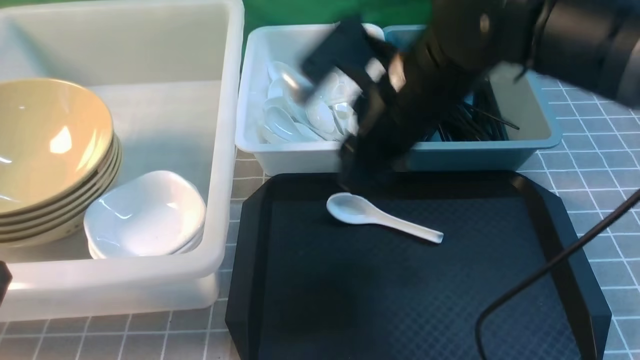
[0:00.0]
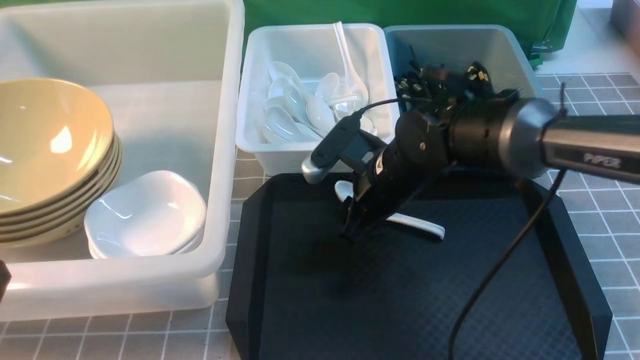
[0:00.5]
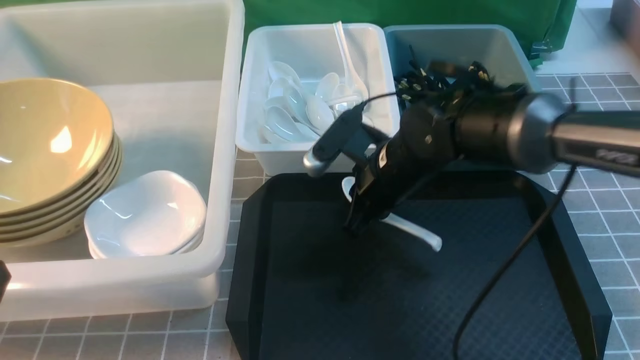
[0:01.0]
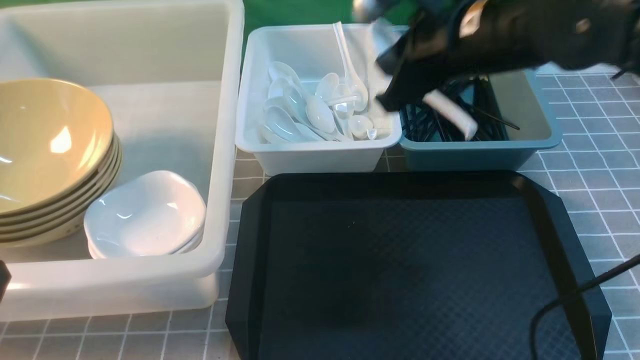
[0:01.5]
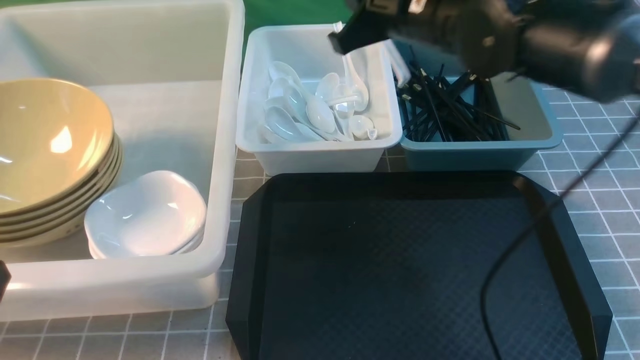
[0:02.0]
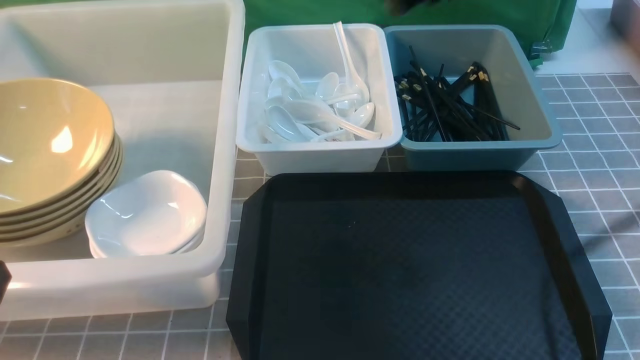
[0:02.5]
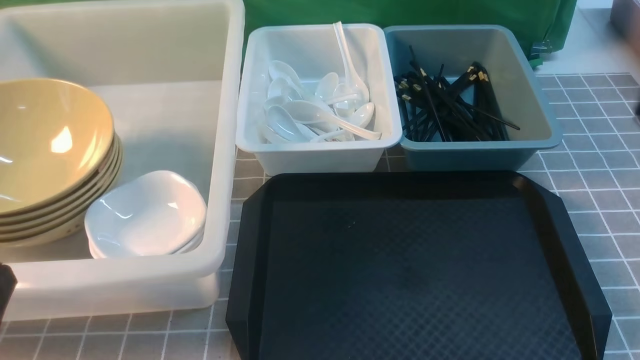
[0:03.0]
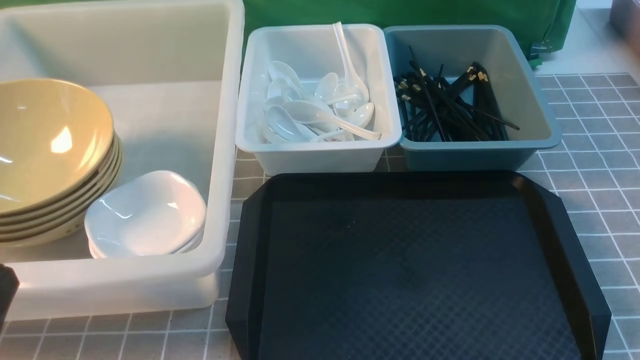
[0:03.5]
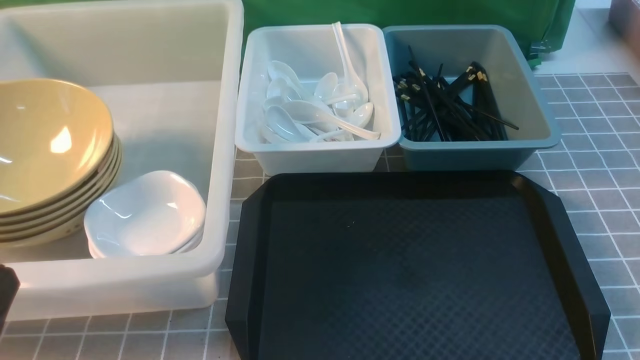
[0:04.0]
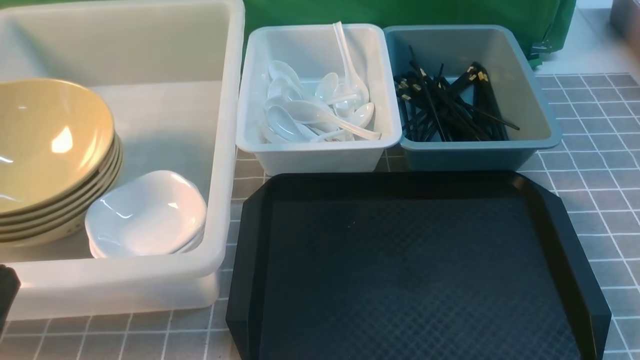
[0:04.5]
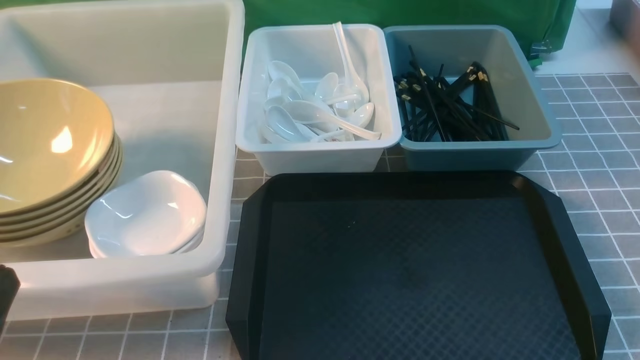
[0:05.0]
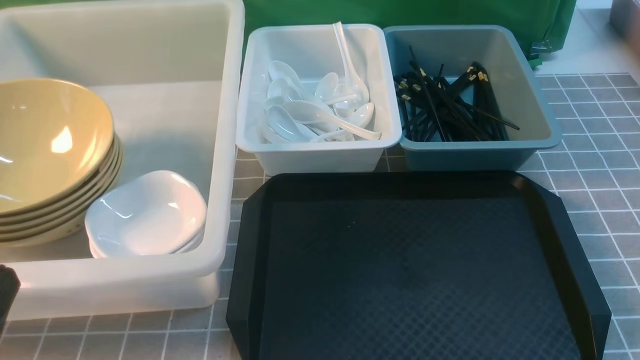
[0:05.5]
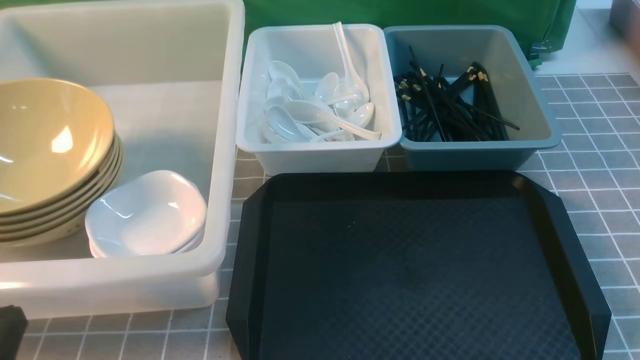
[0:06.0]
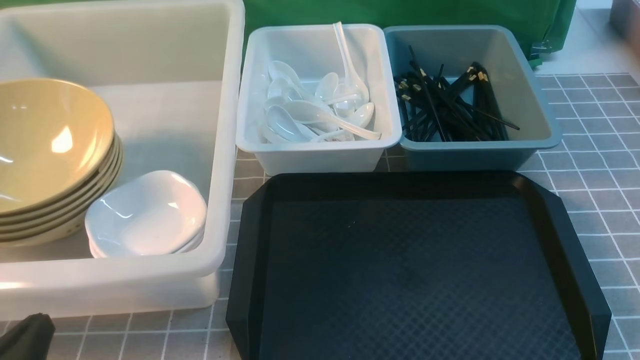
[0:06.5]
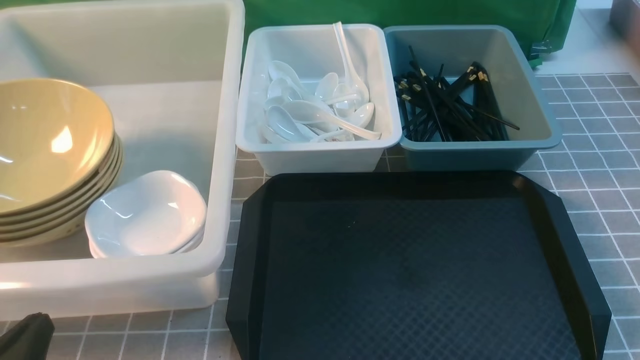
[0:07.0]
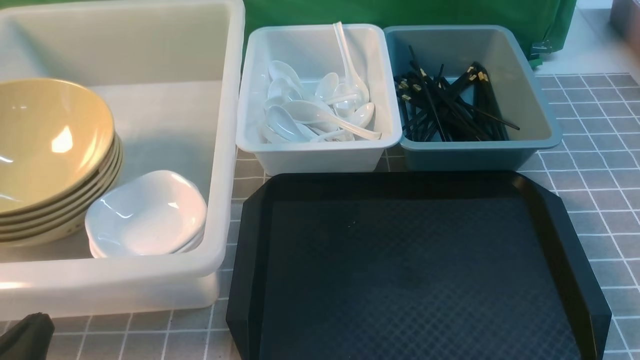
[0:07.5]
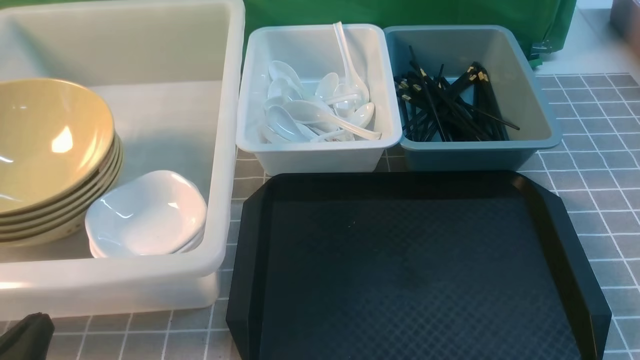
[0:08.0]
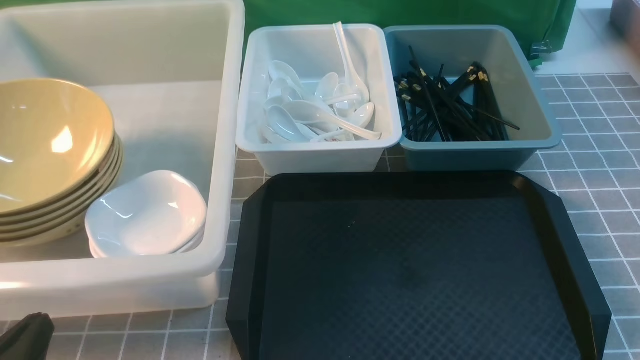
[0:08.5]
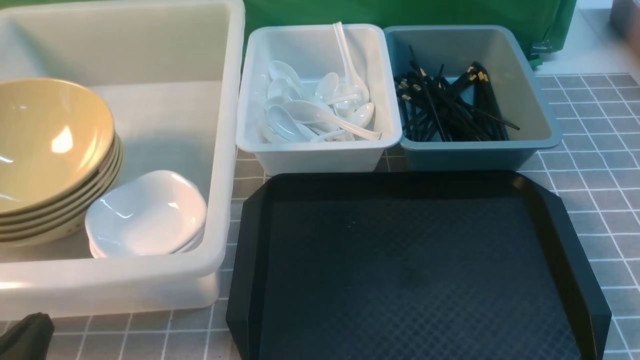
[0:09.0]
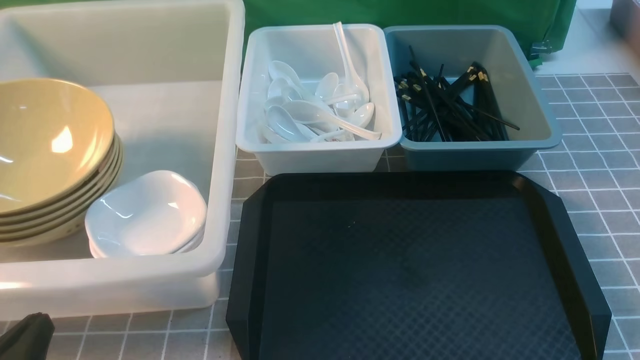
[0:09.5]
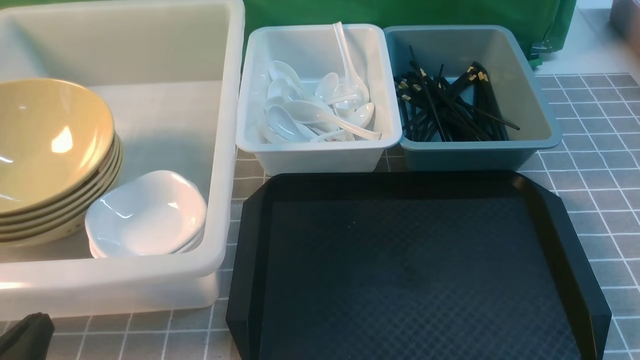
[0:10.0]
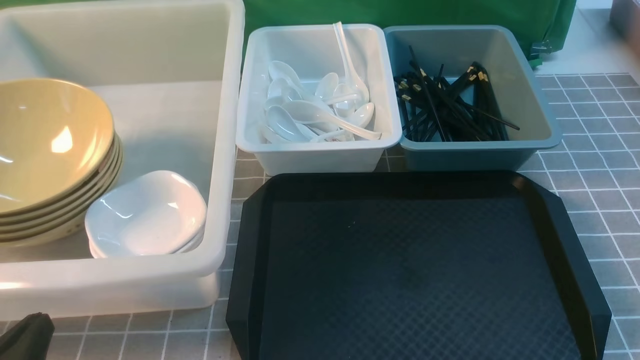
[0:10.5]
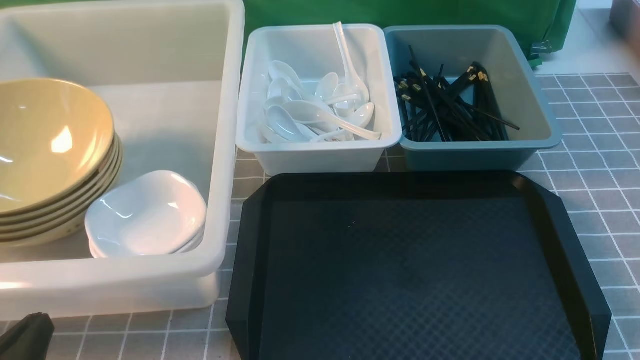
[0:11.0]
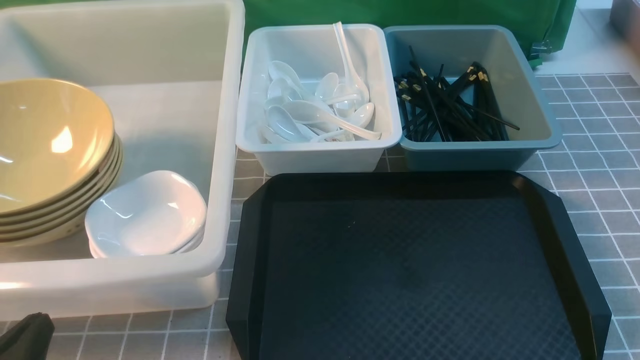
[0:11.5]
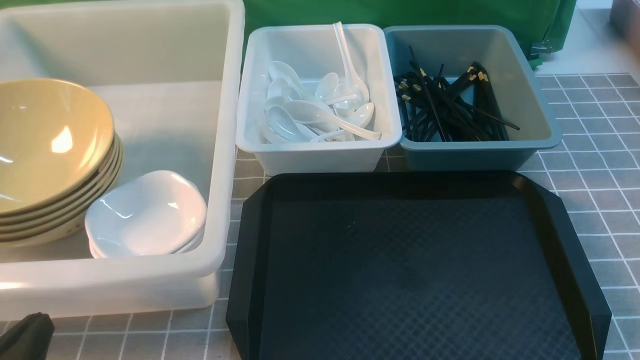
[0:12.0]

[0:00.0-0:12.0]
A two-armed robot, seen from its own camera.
Task of the whole recording: on grey table put chopsticks spoon bowls plates into blue grey white boxes.
Step, 0:00.0 to 0:00.5: use the right arm to grab the soup spoon in the middle.
Step, 0:01.5 to 0:02.0: use the right arm to put the soup spoon into the small storage box in the middle.
0:00.0 to 0:02.0: The right gripper heads forward, covering about 10 cm, moves some 10 cm downward and comes back, and closes.
0:02.0 to 0:04.0: The right gripper moves backward and to the right, some 40 cm.
0:04.0 to 0:06.0: The left gripper moves about 5 cm.
0:08.0 to 0:12.0: Neither gripper changes place.

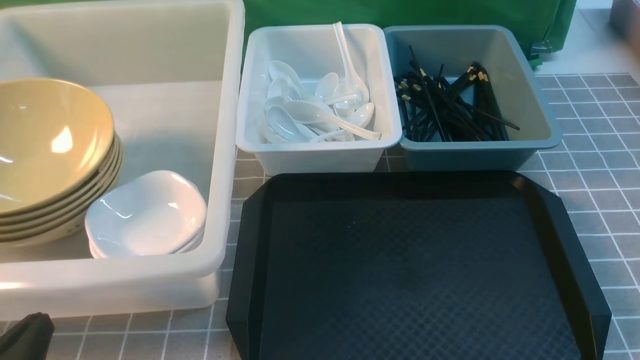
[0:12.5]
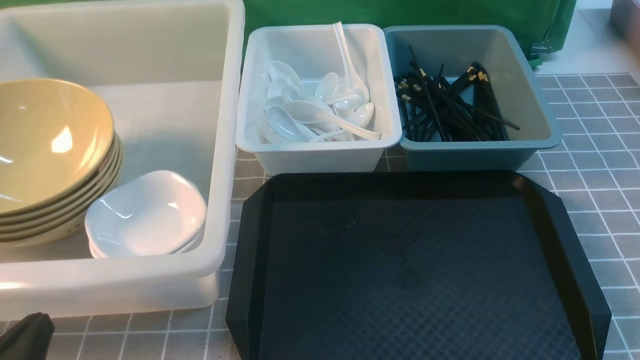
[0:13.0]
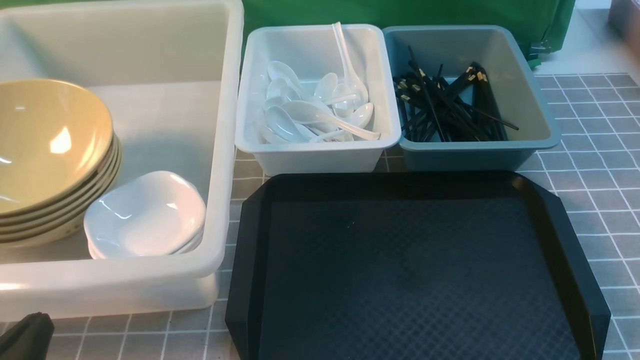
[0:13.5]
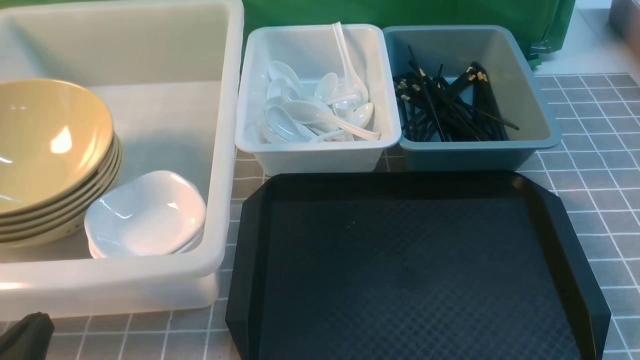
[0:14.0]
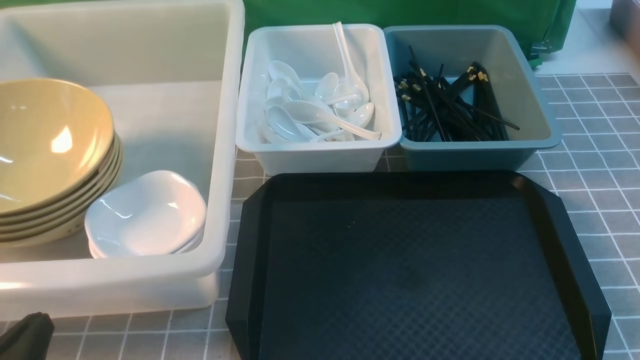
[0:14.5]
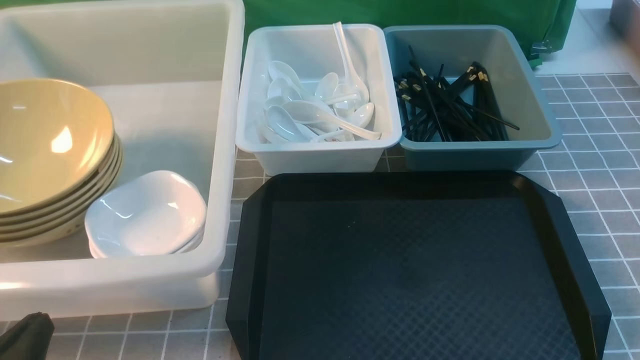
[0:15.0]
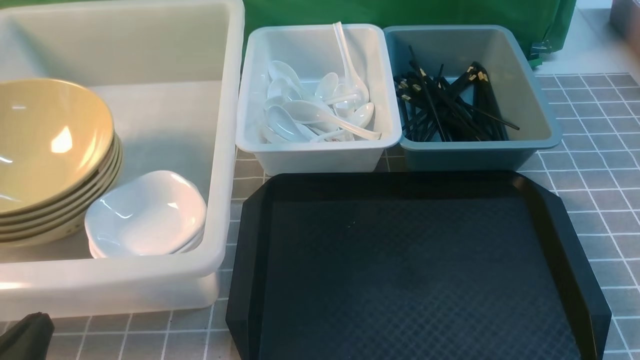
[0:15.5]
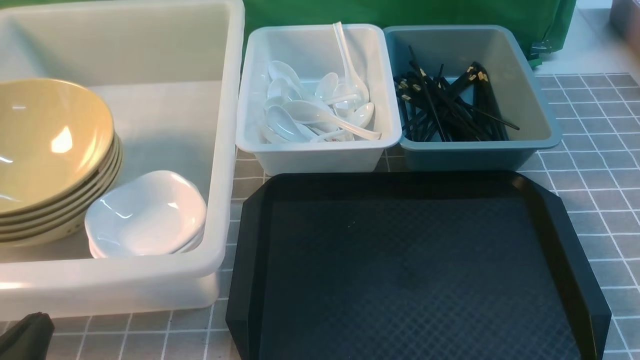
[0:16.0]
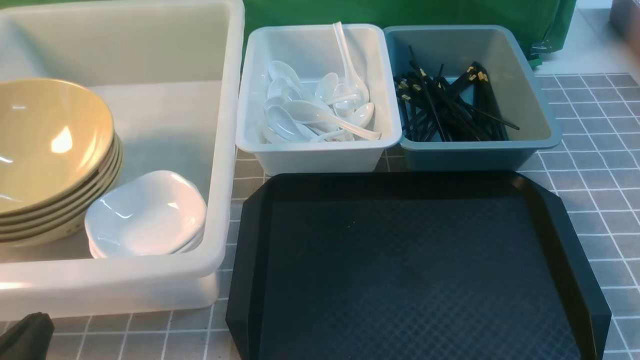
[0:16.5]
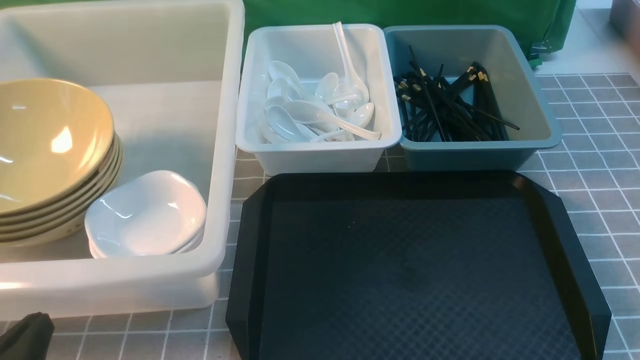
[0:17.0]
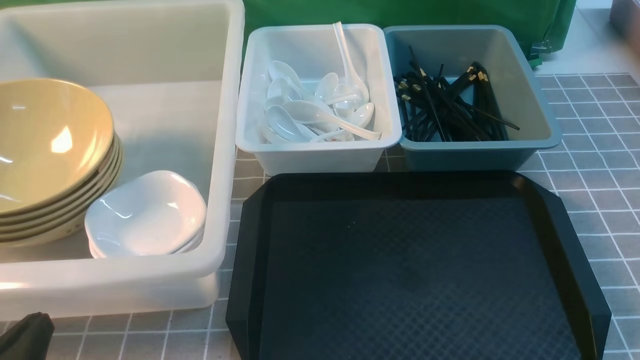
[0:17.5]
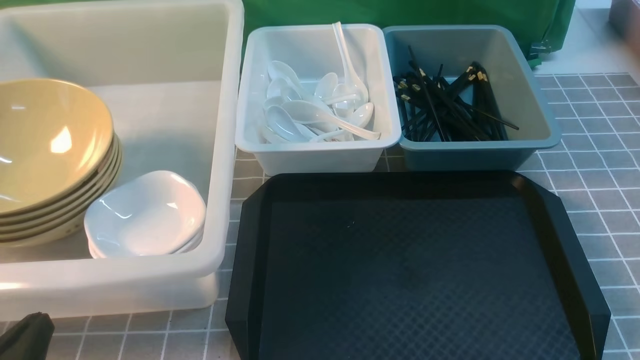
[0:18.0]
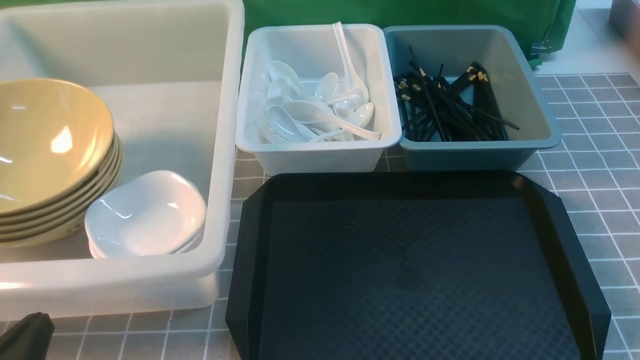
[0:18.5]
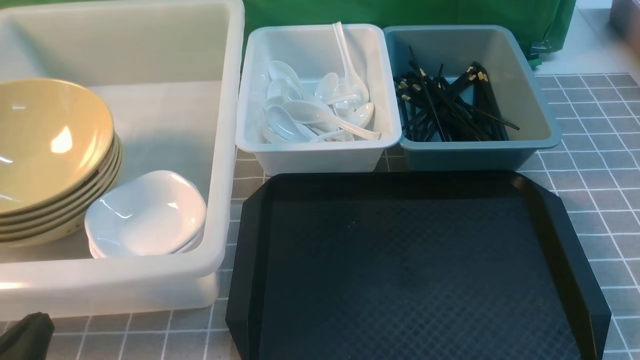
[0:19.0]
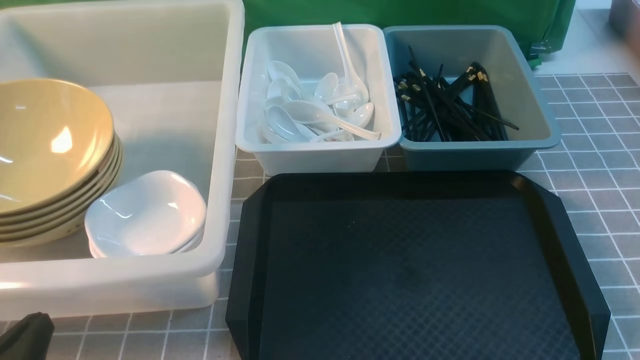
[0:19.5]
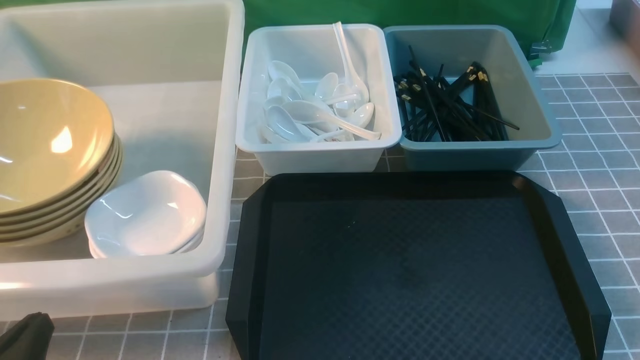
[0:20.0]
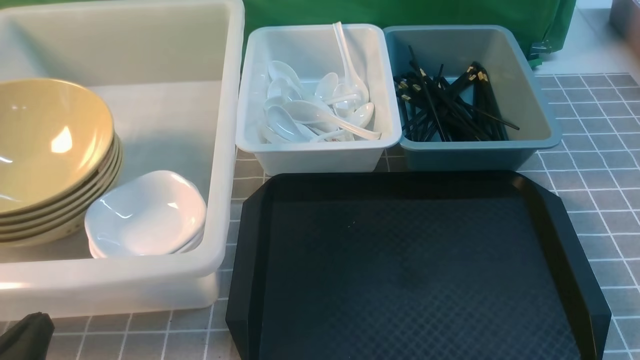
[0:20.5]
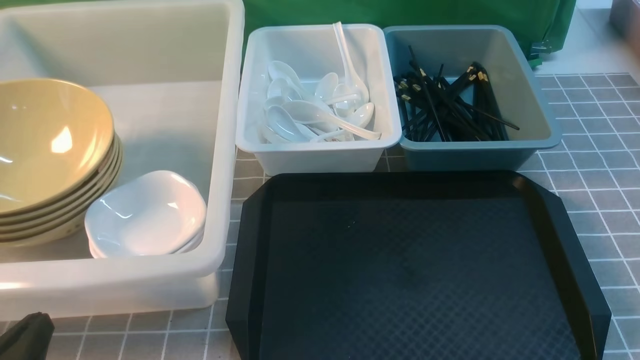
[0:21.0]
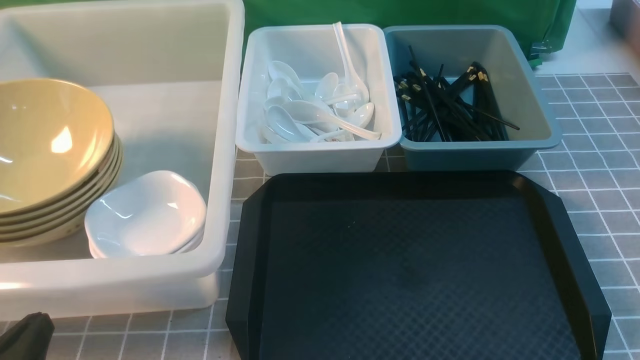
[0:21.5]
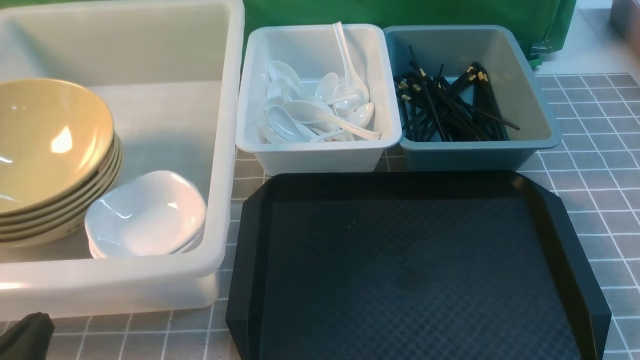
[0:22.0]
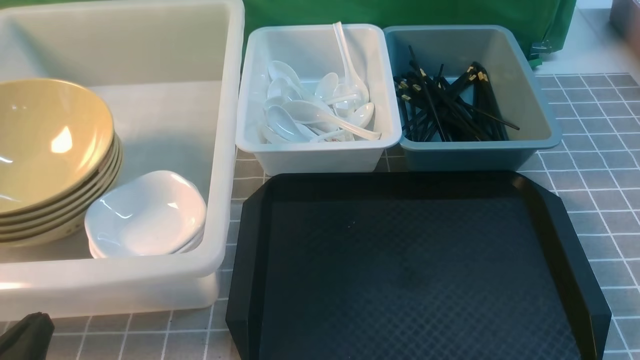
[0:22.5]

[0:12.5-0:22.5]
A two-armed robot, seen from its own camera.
Task of the whole recording: on grey table put chopsticks spoon bowls plates into blue grey white boxes.
0:12.5 to 0:22.5: Both grippers stay put.
